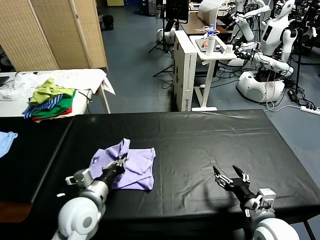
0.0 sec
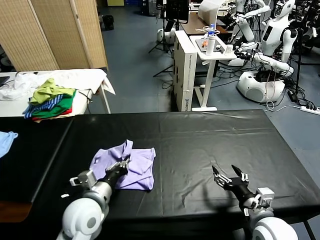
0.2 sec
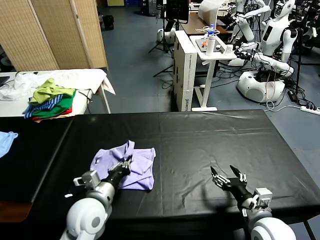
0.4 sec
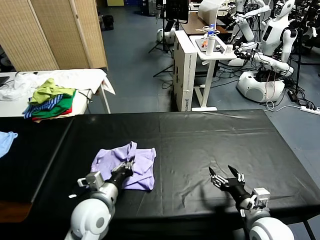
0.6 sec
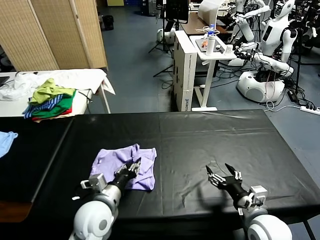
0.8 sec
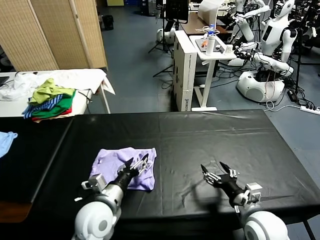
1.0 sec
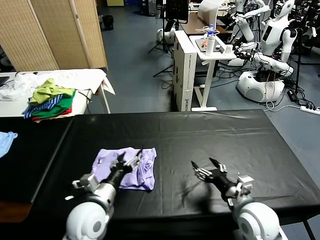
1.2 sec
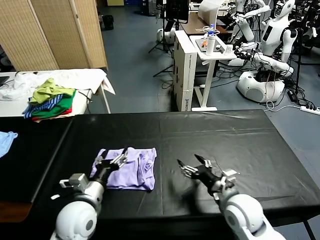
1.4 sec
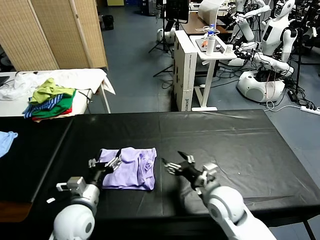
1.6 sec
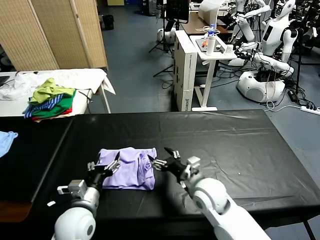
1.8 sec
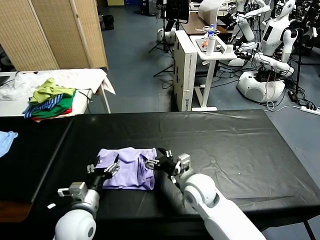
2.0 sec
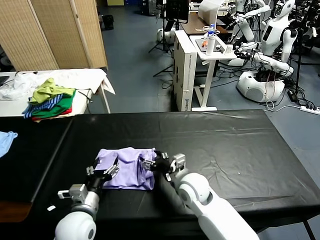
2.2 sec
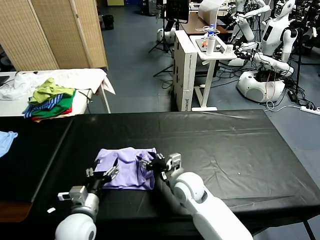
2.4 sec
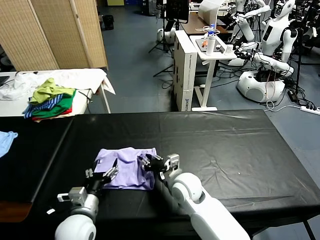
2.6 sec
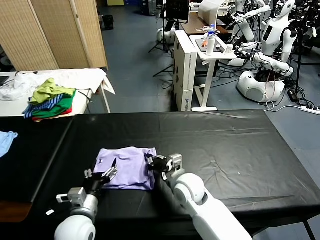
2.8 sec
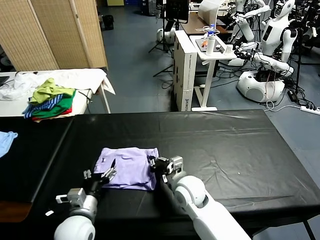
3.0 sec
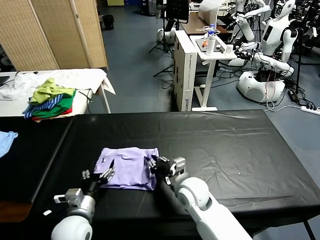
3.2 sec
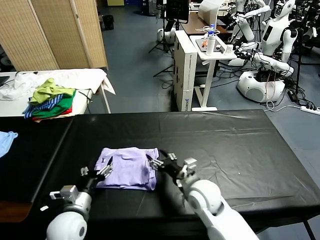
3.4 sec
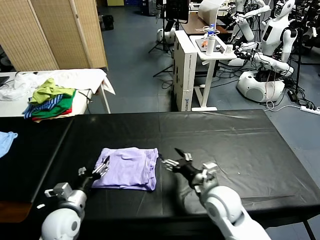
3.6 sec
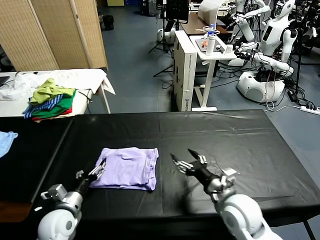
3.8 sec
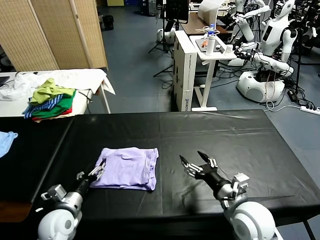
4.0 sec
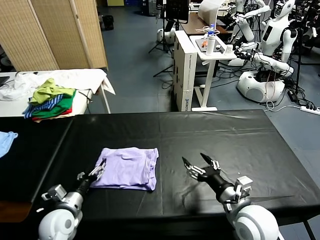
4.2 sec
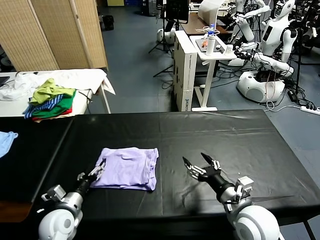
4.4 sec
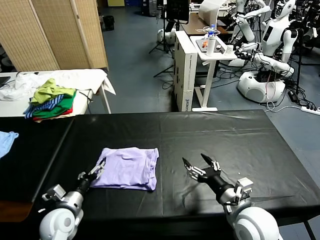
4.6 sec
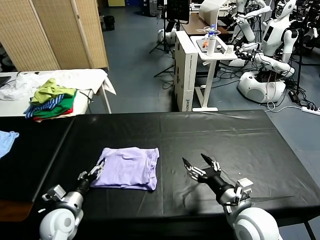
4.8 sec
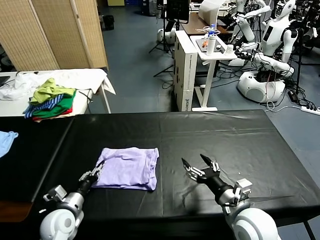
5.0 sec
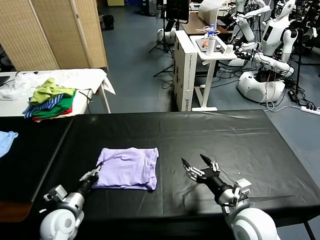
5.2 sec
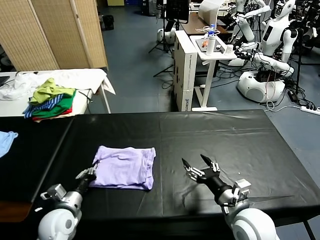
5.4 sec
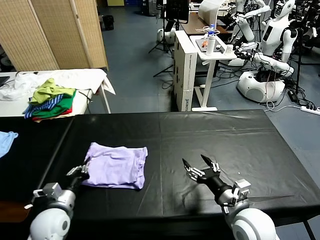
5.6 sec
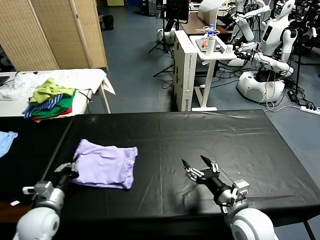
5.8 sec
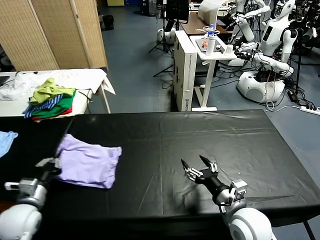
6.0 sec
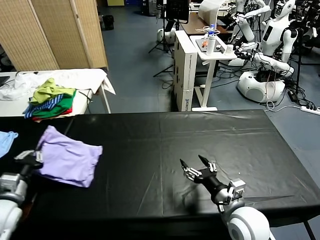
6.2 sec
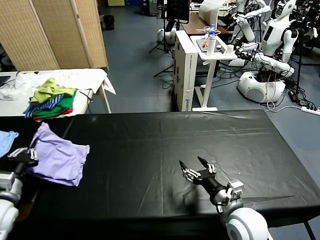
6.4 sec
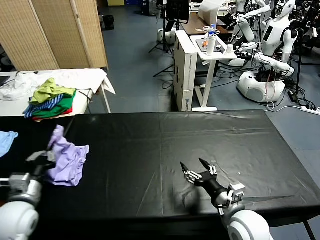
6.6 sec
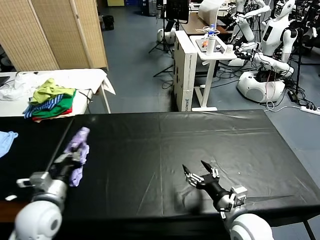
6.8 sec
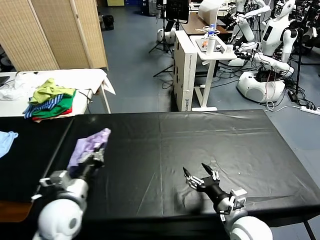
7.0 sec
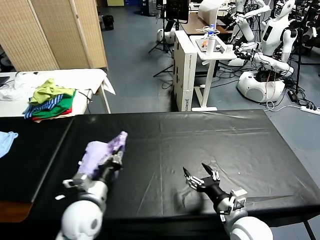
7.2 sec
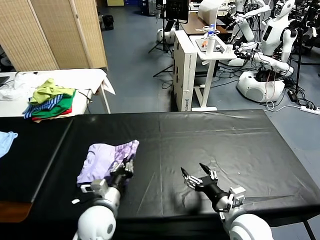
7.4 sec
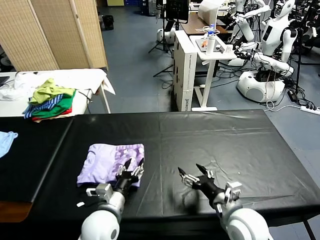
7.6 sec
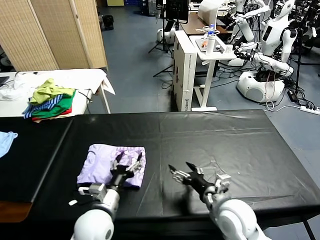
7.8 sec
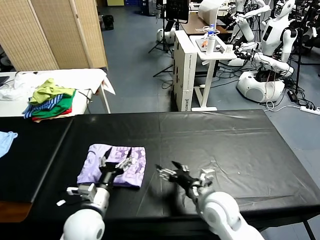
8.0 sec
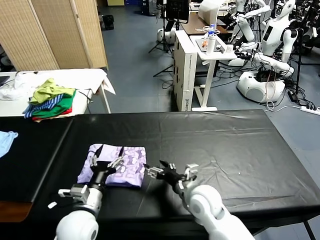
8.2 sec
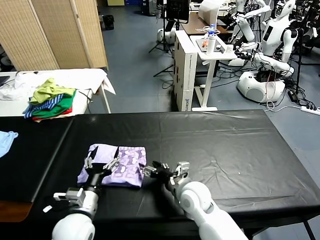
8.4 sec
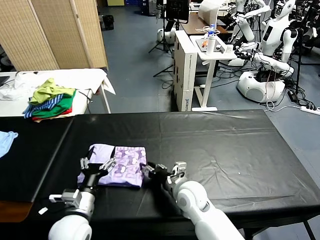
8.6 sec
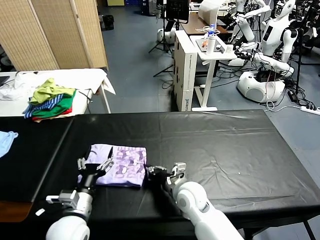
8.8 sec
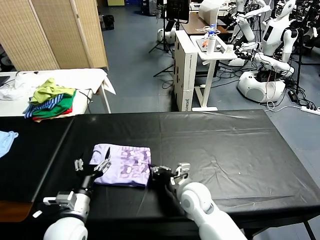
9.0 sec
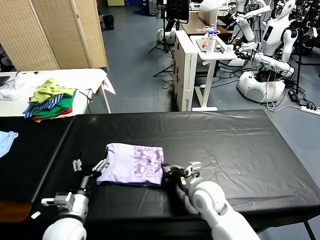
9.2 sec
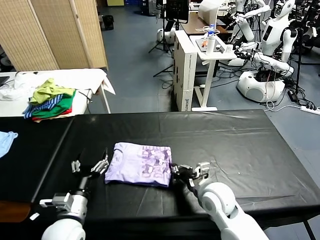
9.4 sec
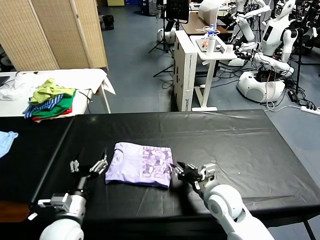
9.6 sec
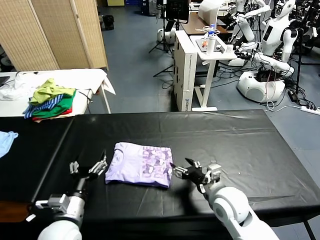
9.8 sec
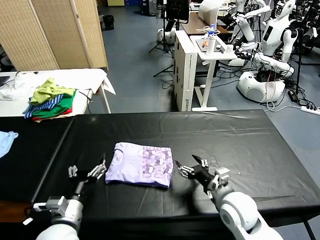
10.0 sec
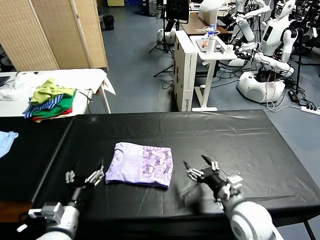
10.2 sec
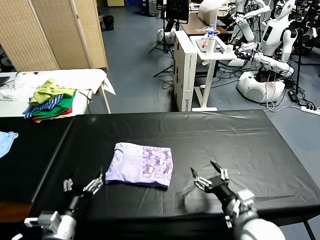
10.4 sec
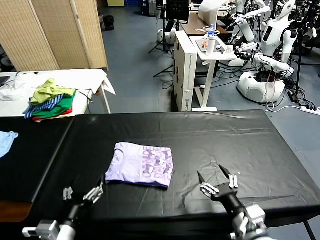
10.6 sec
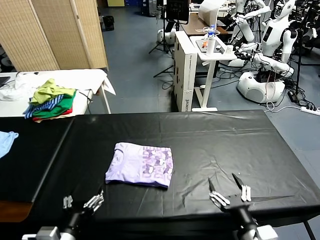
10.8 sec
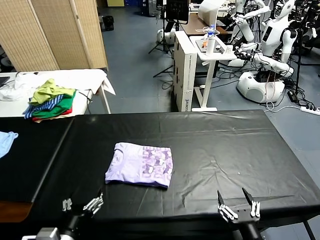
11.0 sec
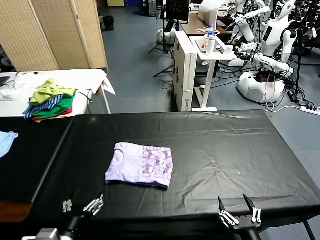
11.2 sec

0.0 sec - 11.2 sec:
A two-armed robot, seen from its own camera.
Task of the whole recording: fold and organize the clothes.
Step, 1.2 sec - 7.6 sec: Flip the folded clothes over with left gripper.
Step, 7.8 sec - 9.6 sec: Drag the clothes to the center of the table.
0.0 sec - 1.6 sec: The left gripper opens, while the right gripper is displaced to the left and forward by approximately 15 cm.
1.6 sec - 3.2 sec: The right gripper shifts about 5 cm to the left, and closes up.
3.2 sec - 4.8 sec: The right gripper moves to the right, backward and upward, roughly 20 cm, and opens up, while the left gripper travels to the left by some 10 cm.
4.8 sec - 6.4 sec: The left gripper heads upward and to the left, covering some 15 cm, and closes up.
6.4 sec - 8.0 sec: The left gripper moves to the right, some 25 cm, and opens. The right gripper travels to the left by approximately 5 cm.
8.0 sec - 9.6 sec: The left gripper travels to the left by some 5 cm; the right gripper moves about 10 cm to the left and comes back, and closes up.
9.6 sec - 11.2 sec: The left gripper moves backward, about 10 cm, while the right gripper is displaced backward by some 25 cm, and opens.

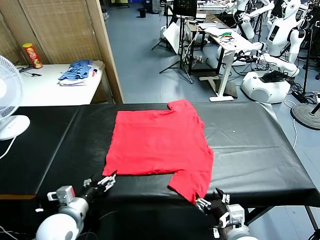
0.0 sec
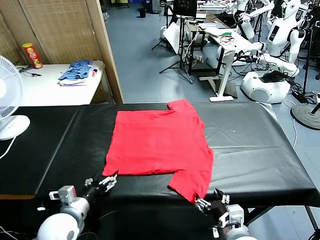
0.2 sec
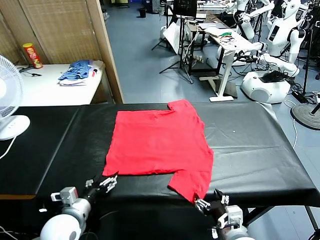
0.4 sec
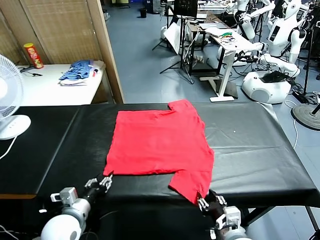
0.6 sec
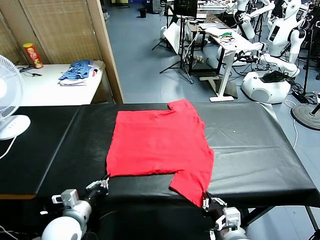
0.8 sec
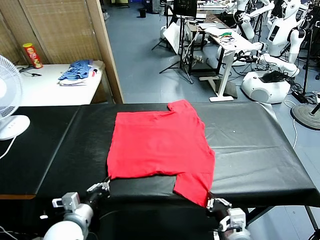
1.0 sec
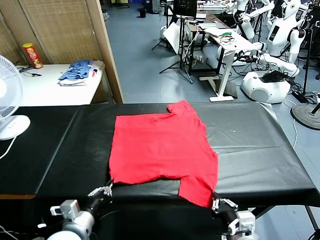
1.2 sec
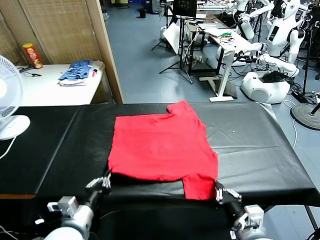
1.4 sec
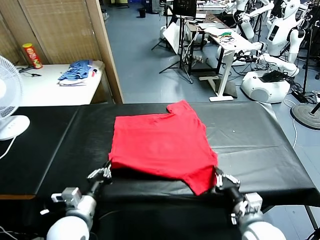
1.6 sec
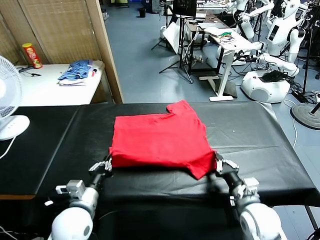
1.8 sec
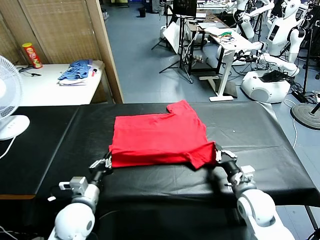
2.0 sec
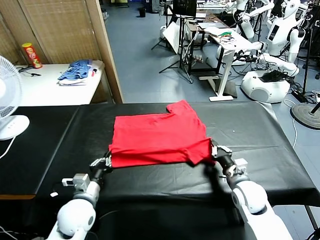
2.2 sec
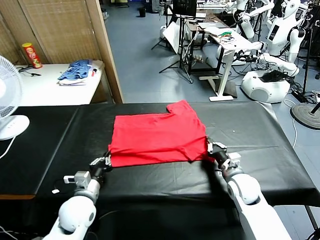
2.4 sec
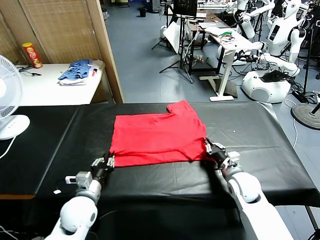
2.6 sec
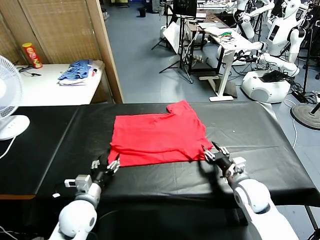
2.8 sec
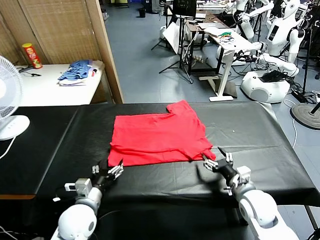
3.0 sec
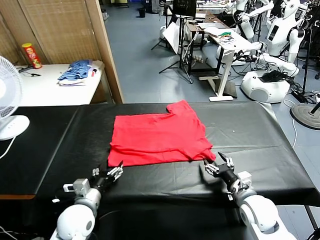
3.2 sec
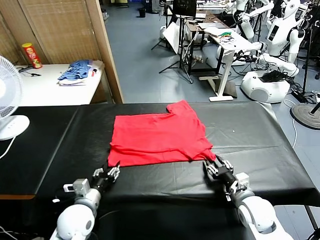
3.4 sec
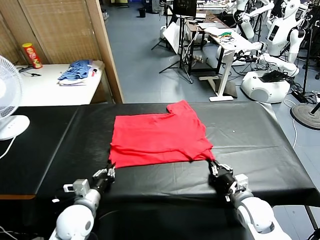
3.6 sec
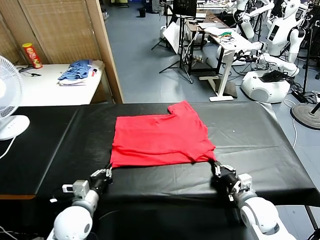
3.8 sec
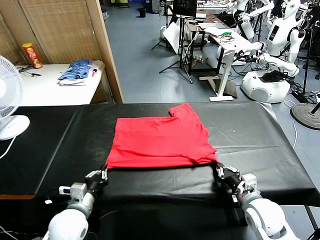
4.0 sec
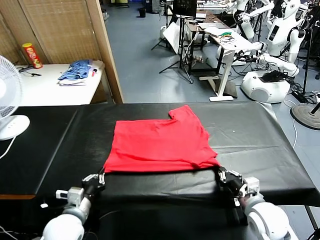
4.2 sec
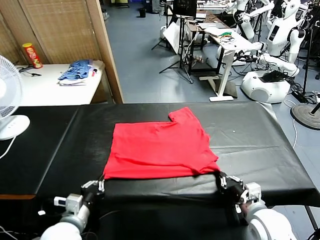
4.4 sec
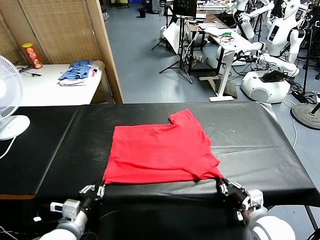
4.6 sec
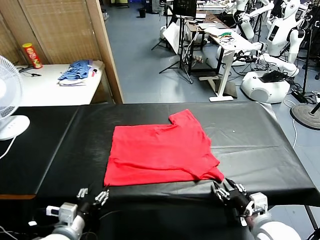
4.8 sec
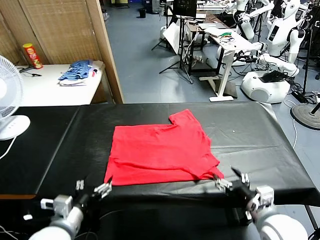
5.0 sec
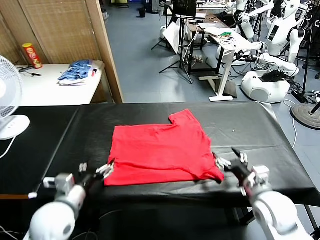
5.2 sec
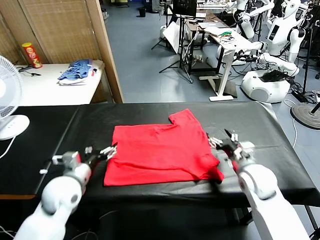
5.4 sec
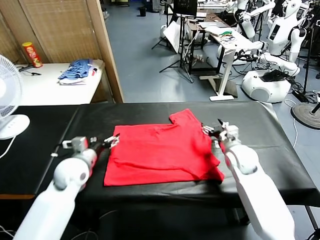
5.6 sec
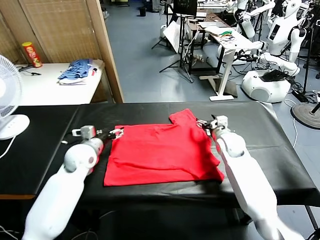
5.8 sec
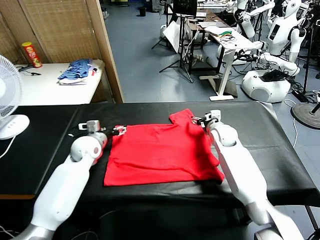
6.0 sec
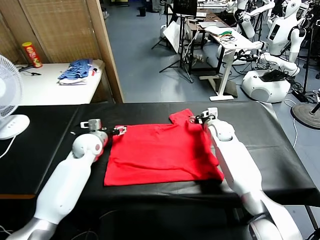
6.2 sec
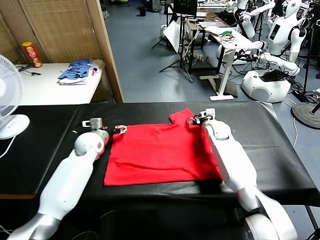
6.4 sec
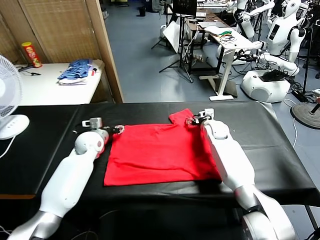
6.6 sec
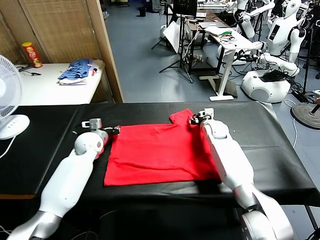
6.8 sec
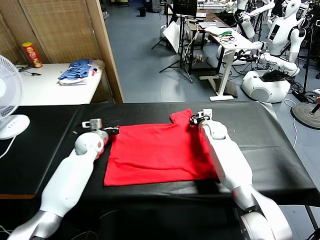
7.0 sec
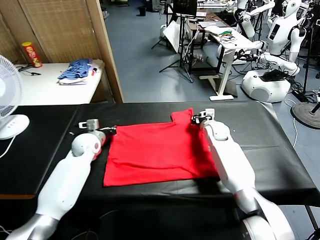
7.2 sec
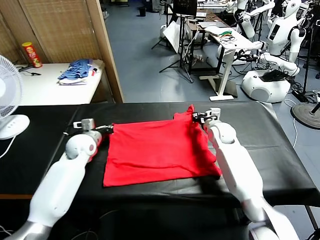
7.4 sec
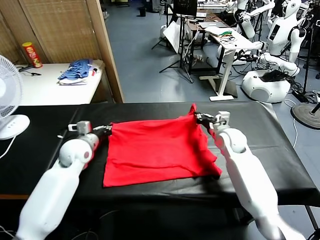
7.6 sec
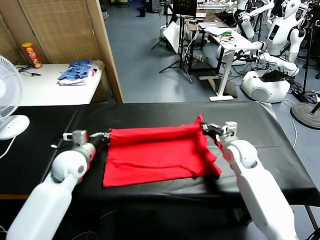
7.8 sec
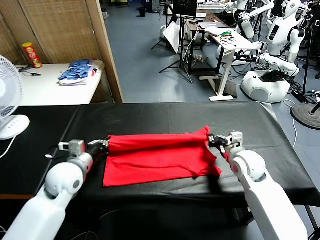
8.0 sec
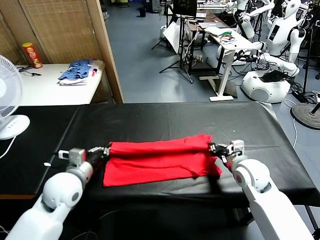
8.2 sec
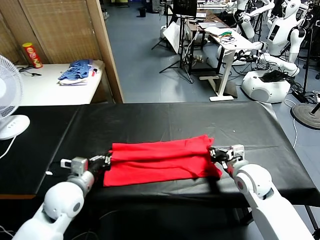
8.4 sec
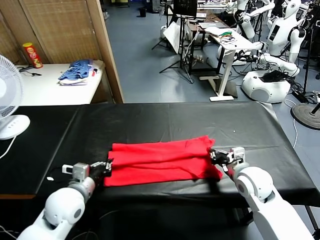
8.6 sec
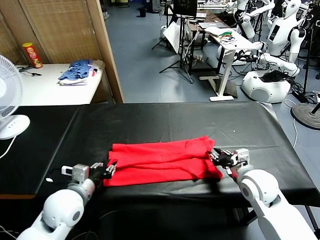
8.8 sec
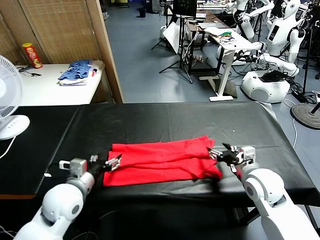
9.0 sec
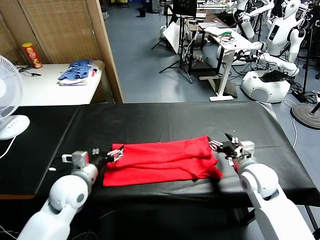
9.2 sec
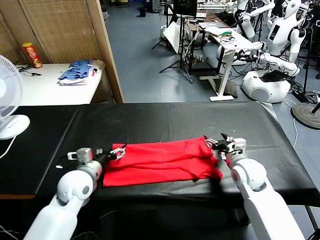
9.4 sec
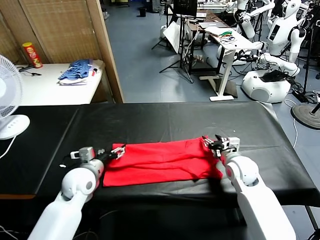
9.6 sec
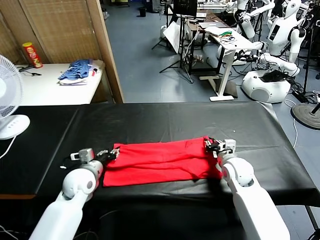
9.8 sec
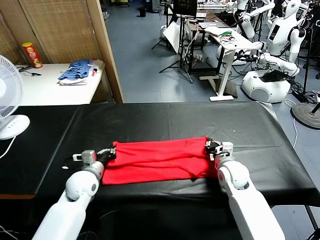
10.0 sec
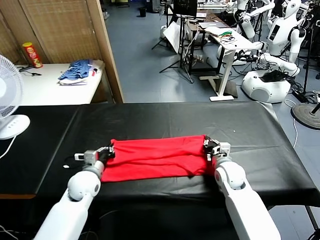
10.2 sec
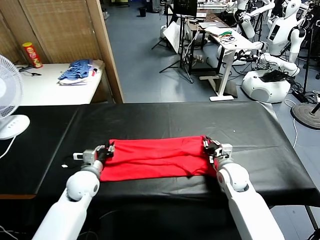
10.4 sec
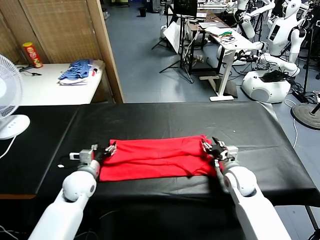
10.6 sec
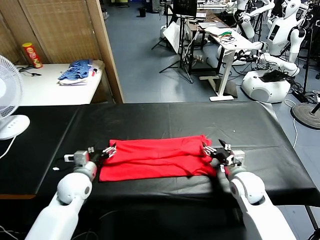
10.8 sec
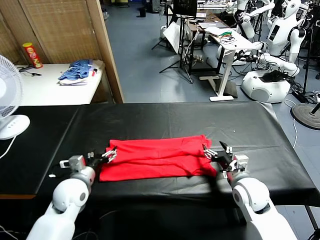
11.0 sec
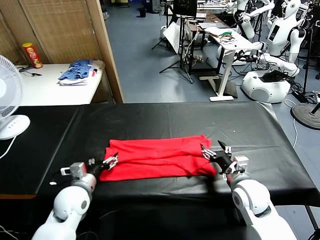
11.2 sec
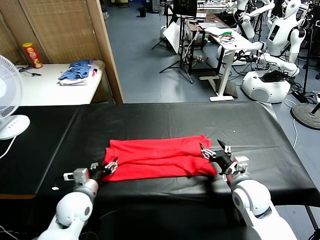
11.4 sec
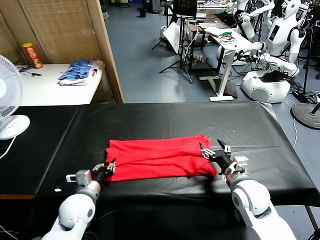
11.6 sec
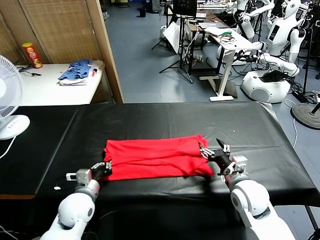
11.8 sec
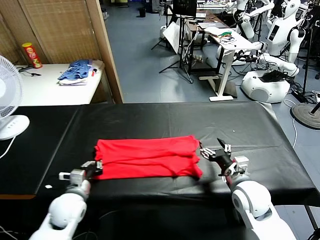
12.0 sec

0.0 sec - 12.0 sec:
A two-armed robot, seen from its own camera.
Task of the whole recording: fold and organize the clothes.
Step, 0.0 sec - 0.8 sec: use both grippers simultaneously to clamp the lower edge of the clothing fabric.
Step, 1.0 sec - 2.8 sec: use both grippers to drag the lower edge of the fabric forward and fold it over the upper edge.
Step, 3.0 sec - 4.8 sec: Drag the clothes downward with both gripper.
Step, 5.0 sec - 7.0 sec: use both grippers simultaneously to clamp the upper edge of the clothing fabric.
Step, 7.2 sec - 9.0 sec: use both grippers to drag the upper edge of the fabric backward and fold it over the lower edge.
Step, 9.2 sec - 11.8 sec: use the left gripper to clamp the left edge of the fabric.
1.6 sec - 3.0 sec: The left gripper opens its fingers. The right gripper reaches approximately 10 cm forward, then returns, and opens up.
3.0 sec - 4.4 sec: Both grippers move backward, some 5 cm. The right gripper closes up; the left gripper closes.
4.4 sec - 6.0 sec: Both grippers travel together forward, approximately 30 cm. The right gripper opens its fingers. Meanwhile the left gripper opens.
6.0 sec - 7.6 sec: The right gripper moves backward, roughly 10 cm, and closes its fingers. Meanwhile the left gripper changes place by about 5 cm, and closes up.
7.6 sec - 9.0 sec: The grippers both shift backward by about 15 cm. The right gripper opens its fingers. The left gripper opens up.
9.0 sec - 10.4 sec: The right gripper shifts about 10 cm downward, and closes, while the left gripper goes some 10 cm downward and forward, and closes up.
10.4 sec - 12.0 sec: The right gripper is displaced backward and upward by roughly 10 cm, and opens up. The left gripper travels backward by approximately 10 cm, and opens and closes again.
